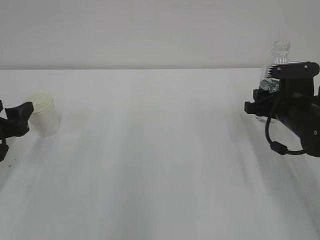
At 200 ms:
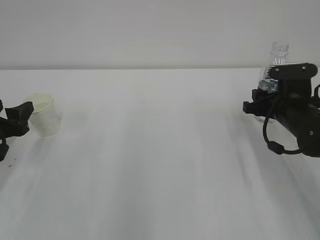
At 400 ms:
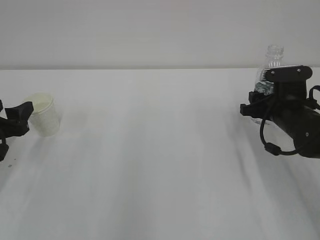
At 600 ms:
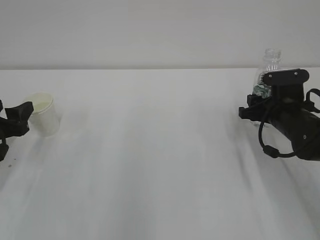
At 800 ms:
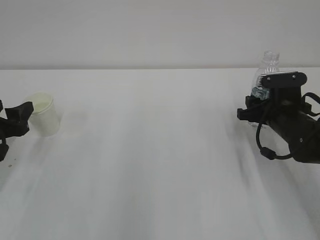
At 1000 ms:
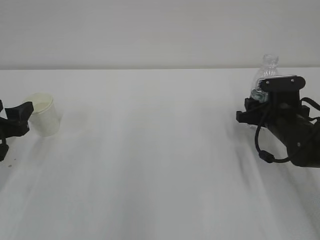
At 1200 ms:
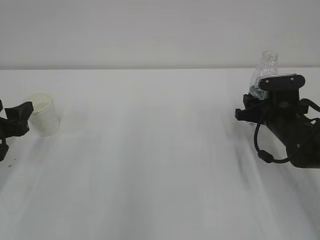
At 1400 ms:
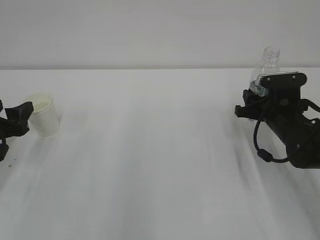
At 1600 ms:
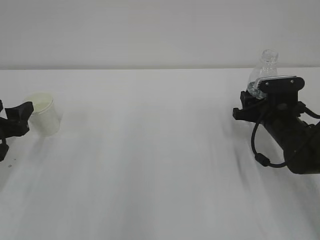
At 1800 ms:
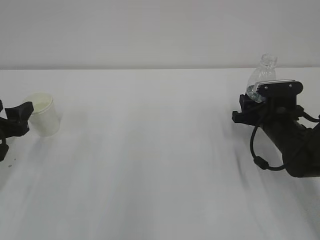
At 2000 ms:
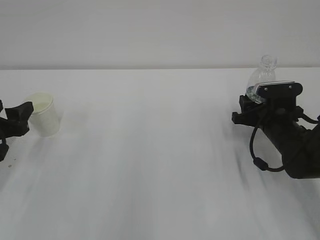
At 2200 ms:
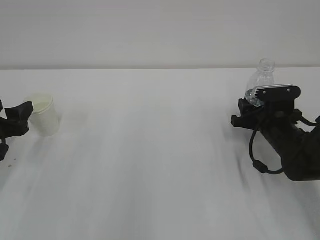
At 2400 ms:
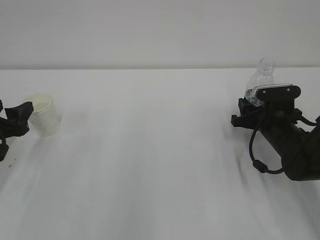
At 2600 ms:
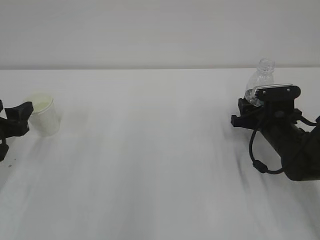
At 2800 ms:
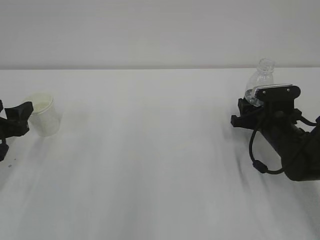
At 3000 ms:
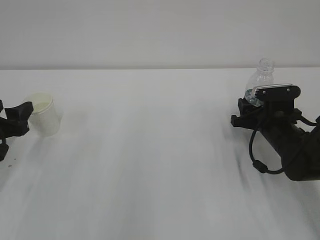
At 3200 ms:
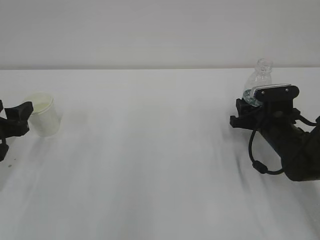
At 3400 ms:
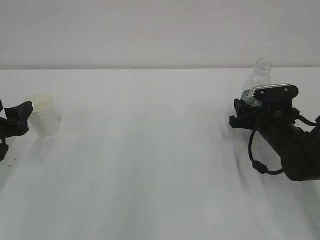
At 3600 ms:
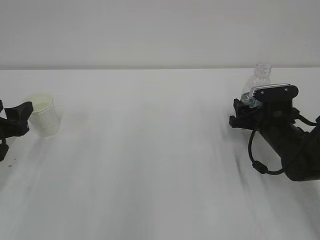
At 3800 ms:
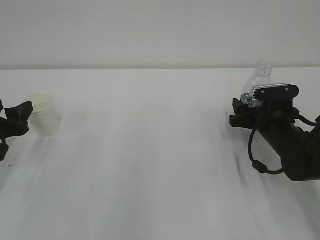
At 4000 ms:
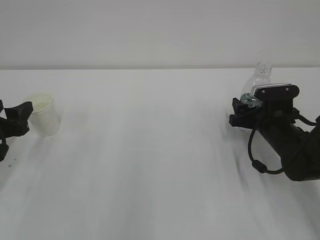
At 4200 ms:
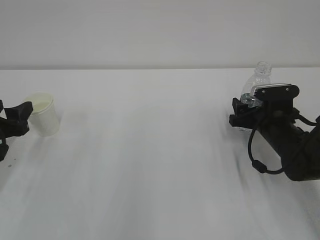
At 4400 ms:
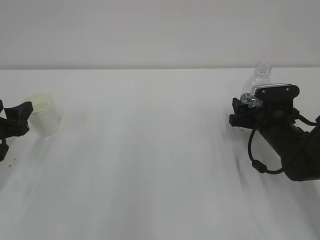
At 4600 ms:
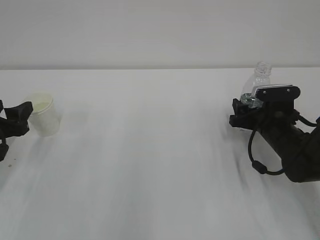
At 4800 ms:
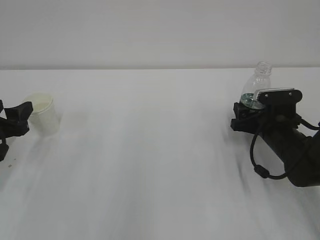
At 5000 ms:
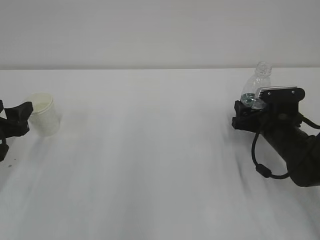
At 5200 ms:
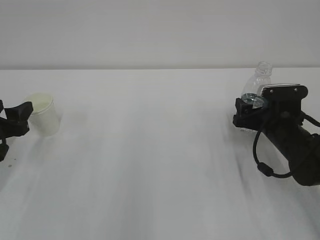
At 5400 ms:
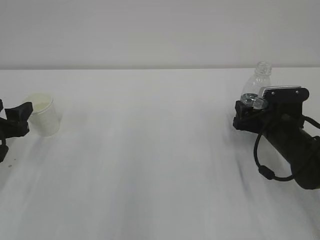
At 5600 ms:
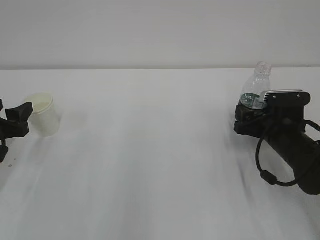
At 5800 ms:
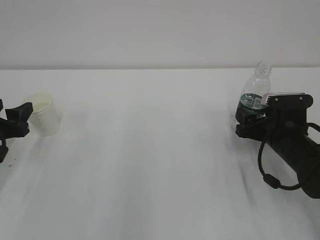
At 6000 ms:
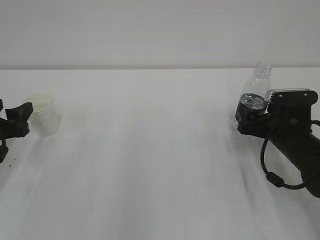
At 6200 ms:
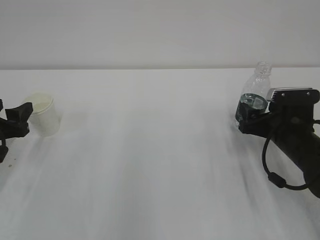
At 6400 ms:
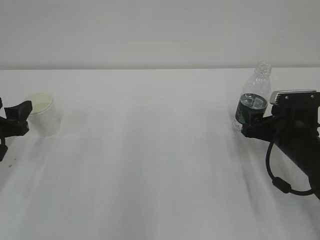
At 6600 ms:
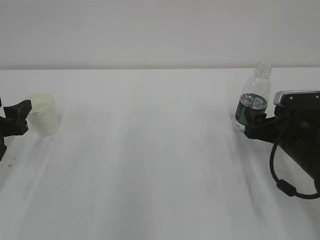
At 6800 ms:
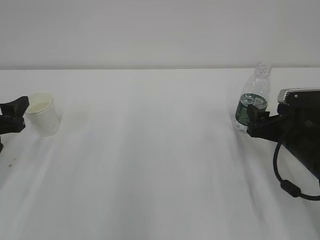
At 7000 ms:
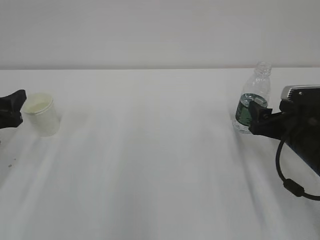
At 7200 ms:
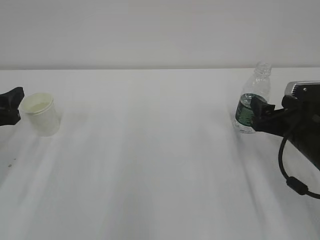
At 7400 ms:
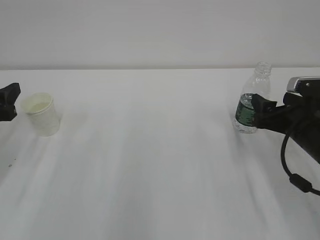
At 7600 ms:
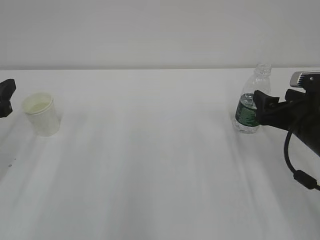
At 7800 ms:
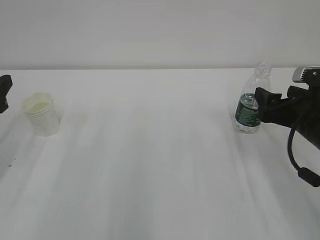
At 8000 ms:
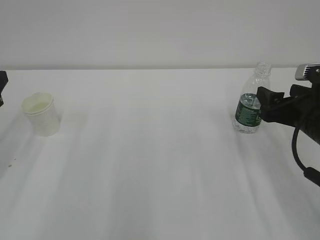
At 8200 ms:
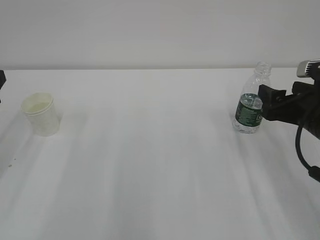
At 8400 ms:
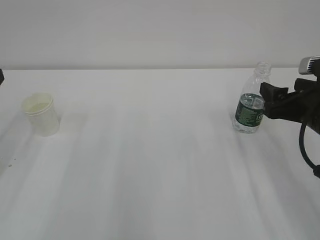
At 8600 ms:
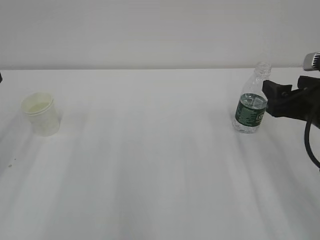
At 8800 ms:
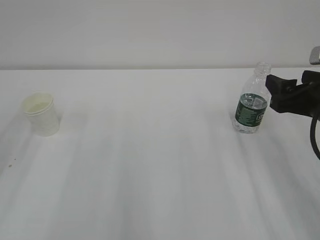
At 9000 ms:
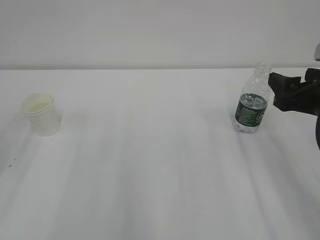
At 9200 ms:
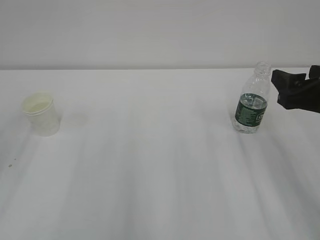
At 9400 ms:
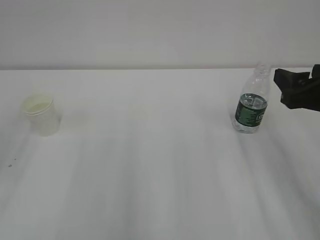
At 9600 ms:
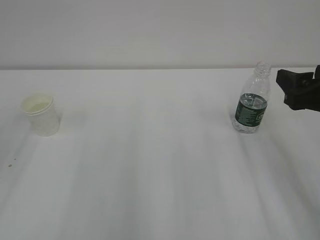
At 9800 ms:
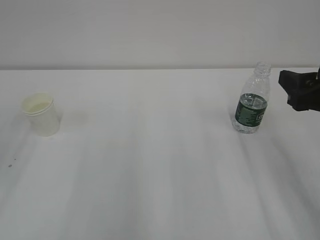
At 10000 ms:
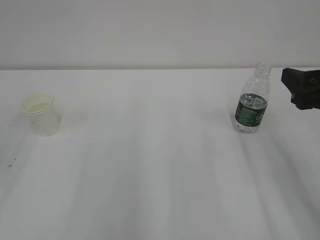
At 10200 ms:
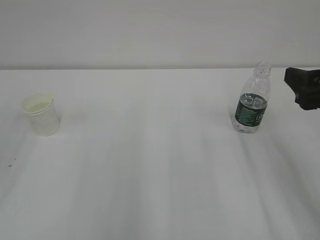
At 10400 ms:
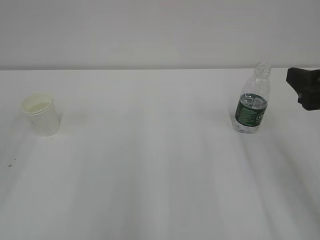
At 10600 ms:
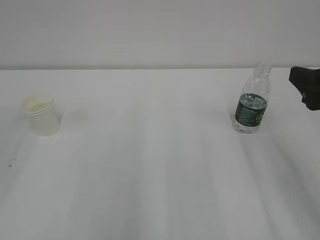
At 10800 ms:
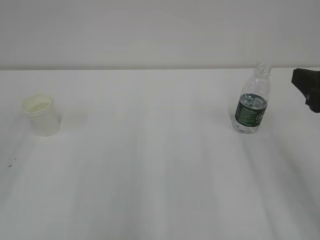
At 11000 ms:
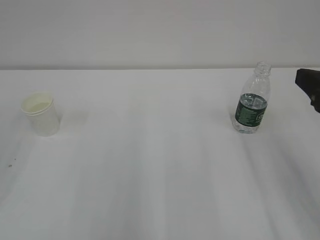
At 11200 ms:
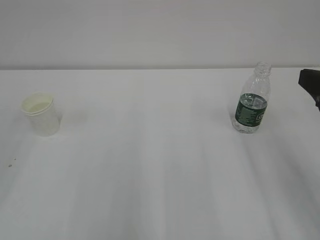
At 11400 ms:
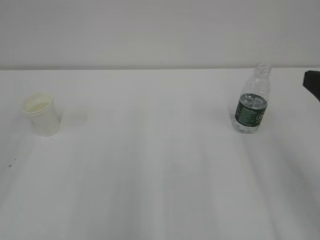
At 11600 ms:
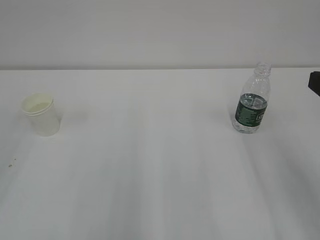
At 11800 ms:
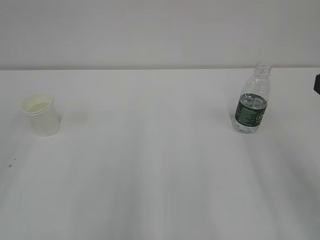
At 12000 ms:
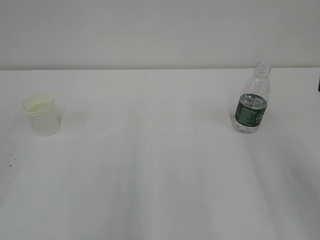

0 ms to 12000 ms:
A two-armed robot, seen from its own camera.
0 ms to 3000 ms: The grippers stay close to where they were, moving slightly.
3000 ms to 4400 ms: The right gripper opens its fingers.
4400 ms to 6000 ms: The grippers stay close to where they were, moving slightly.
6000 ms to 7600 ms: The two grippers go approximately 5 cm upward.
7600 ms to 9000 ms: The right gripper moves upward, approximately 5 cm.
9000 ms to 10400 ms: The right gripper ends up some 5 cm from where it was.
10400 ms to 12000 ms: The right gripper travels backward by some 5 cm.

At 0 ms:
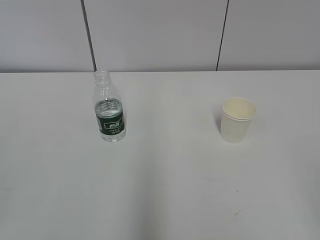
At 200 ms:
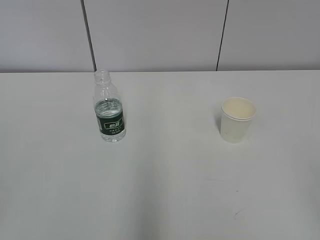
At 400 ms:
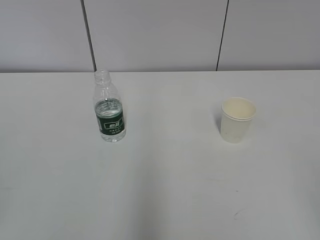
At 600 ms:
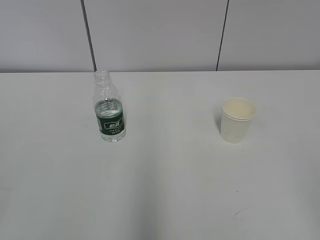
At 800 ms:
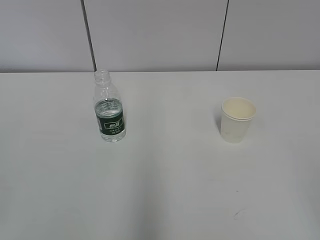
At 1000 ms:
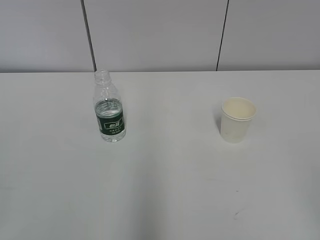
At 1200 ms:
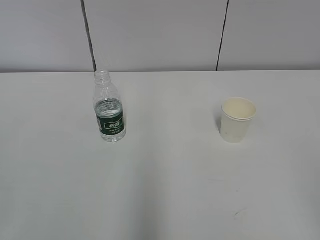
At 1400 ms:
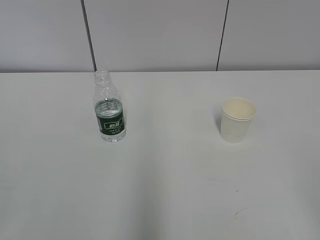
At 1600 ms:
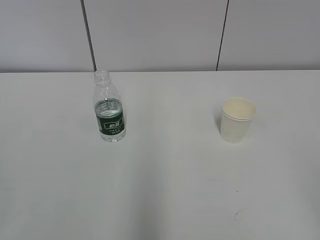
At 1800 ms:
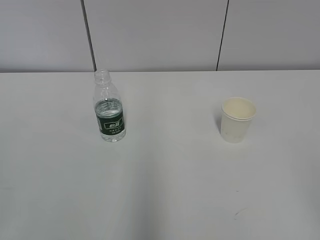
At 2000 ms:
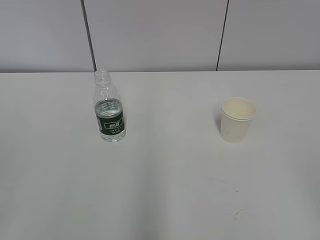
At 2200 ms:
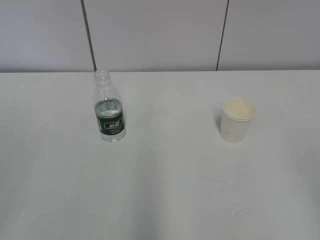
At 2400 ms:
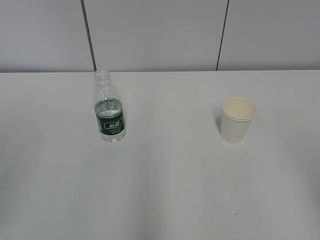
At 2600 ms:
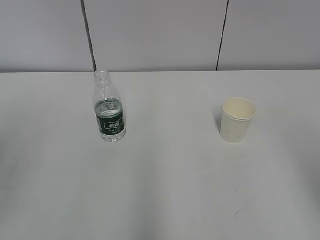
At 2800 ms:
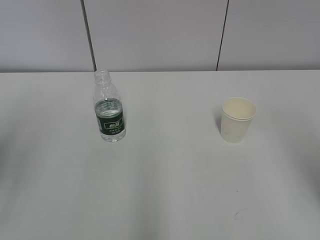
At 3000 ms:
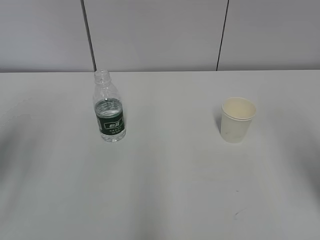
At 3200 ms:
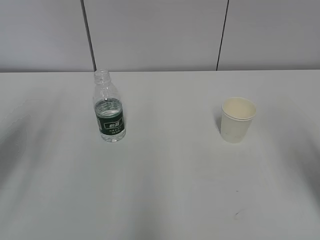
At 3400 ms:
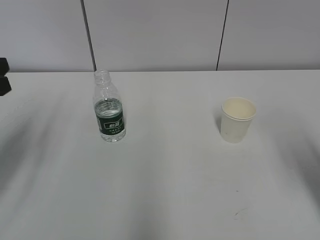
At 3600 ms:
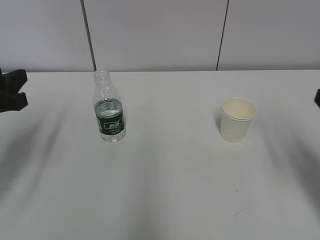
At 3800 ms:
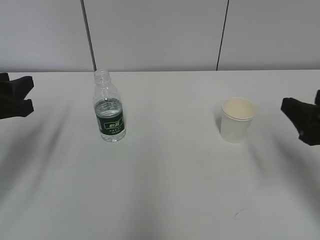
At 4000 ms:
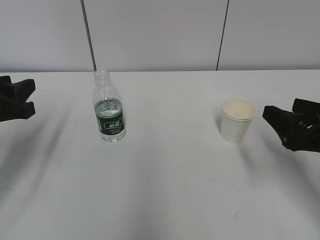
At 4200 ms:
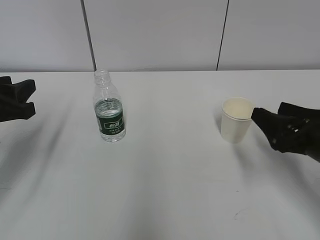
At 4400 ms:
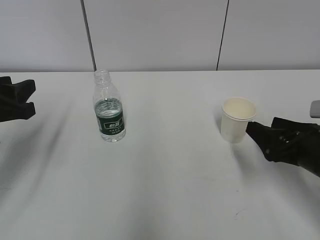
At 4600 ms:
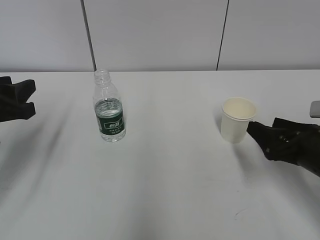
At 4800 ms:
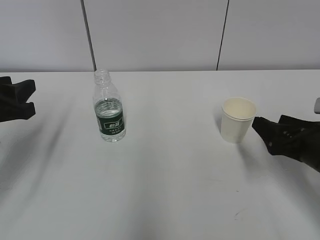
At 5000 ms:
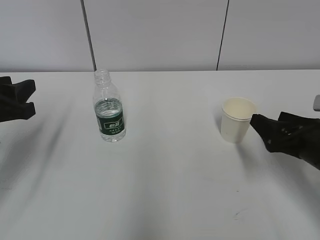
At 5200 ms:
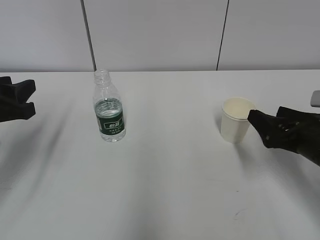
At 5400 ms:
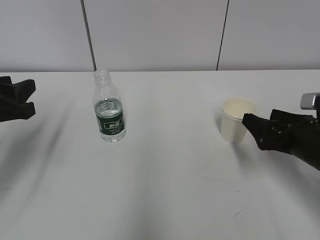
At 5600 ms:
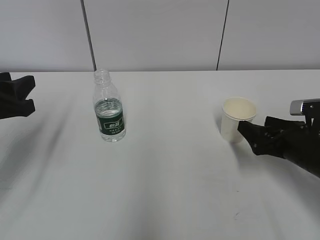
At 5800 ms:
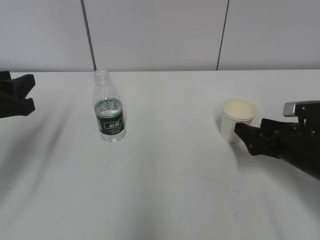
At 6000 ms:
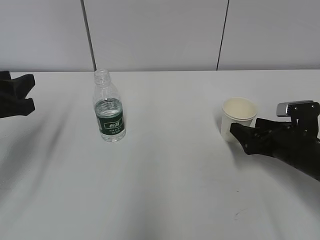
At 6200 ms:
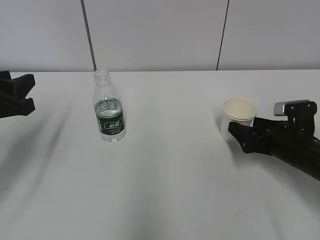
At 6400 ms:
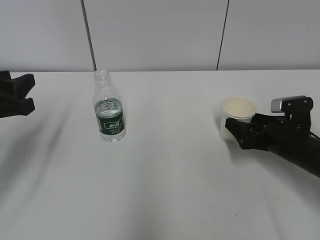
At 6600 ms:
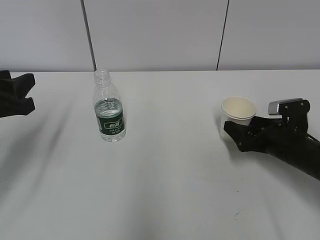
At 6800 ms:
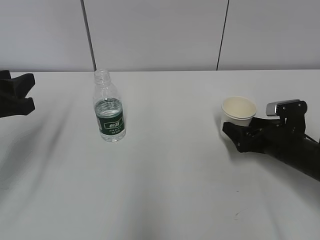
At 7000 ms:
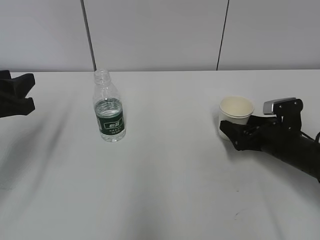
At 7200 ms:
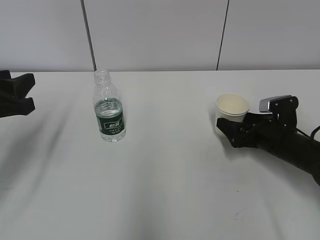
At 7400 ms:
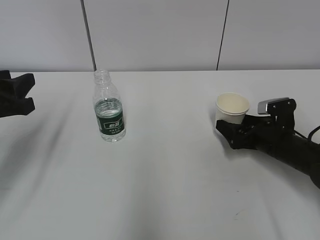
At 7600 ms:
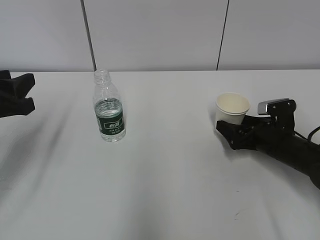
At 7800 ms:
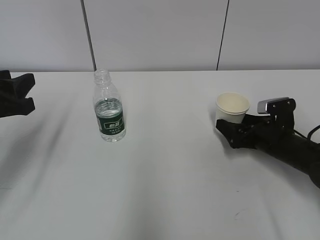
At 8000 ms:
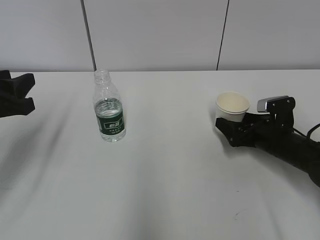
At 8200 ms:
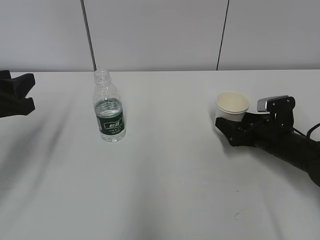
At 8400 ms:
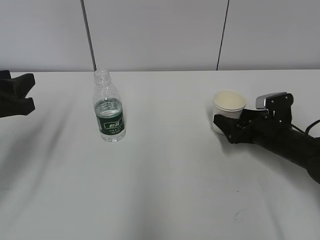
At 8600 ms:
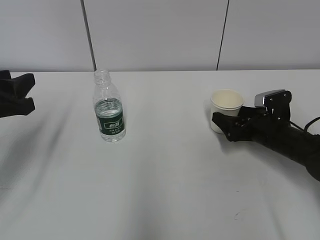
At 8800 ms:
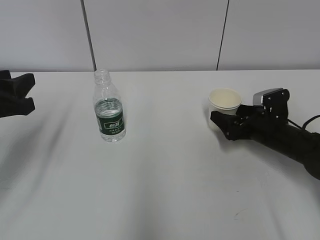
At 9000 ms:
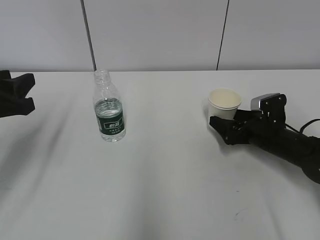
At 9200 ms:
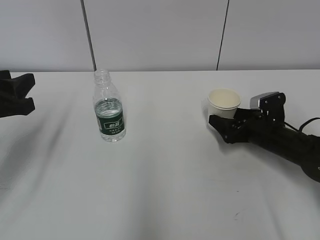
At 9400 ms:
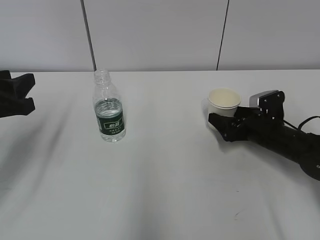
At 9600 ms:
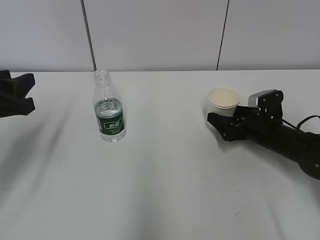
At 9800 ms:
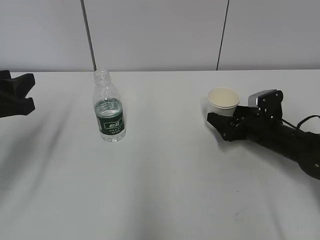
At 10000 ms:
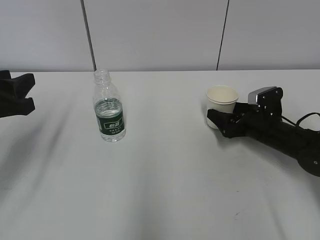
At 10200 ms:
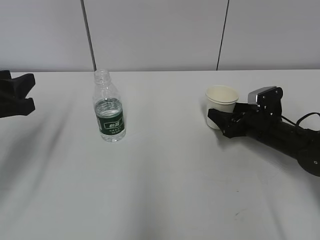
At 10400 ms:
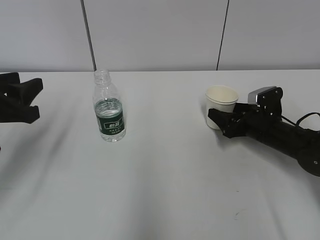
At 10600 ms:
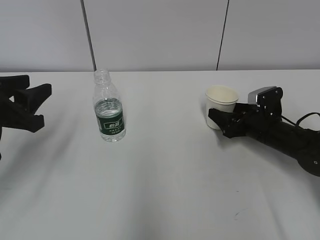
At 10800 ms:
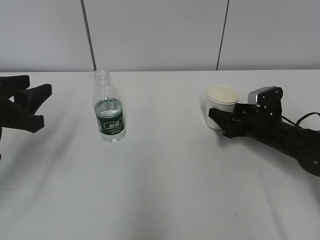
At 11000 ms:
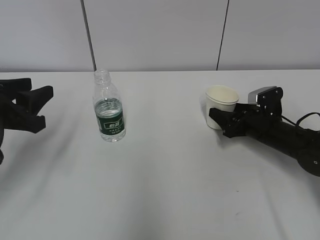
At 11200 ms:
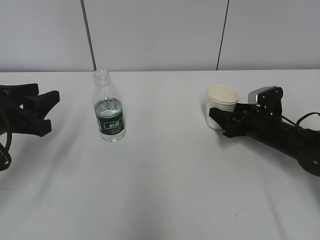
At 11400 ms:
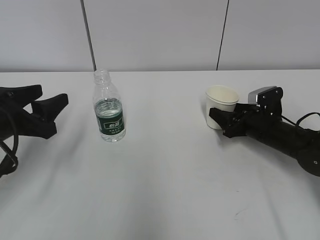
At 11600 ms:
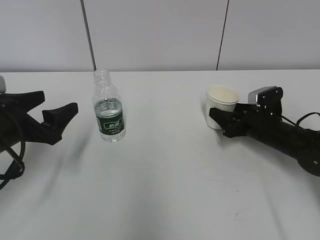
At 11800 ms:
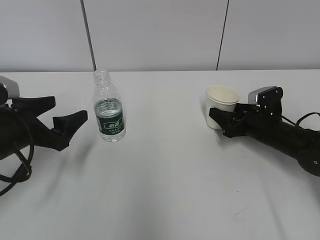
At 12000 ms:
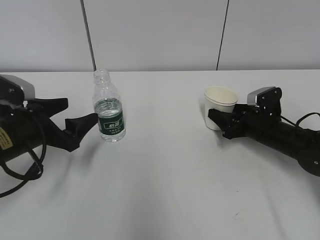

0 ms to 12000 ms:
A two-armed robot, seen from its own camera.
Step, 0 ms to 11600 ms: Grab the paper cup with the right hand.
1600 ms to 3000 ms: The two grippers go about 15 cm forward.
3000 ms to 4400 ms: The right gripper heads downward and forward, covering approximately 20 cm. Meanwhile the left gripper shifts some 10 cm downward and forward.
4400 ms to 6000 ms: The right gripper is displaced forward and downward by approximately 10 cm, and opens up.
6000 ms to 7600 ms: The right gripper shifts by approximately 5 cm.
7600 ms to 9000 ms: The grippers move only a little.
9000 ms to 10400 ms: The right gripper closes up.
10400 ms to 12000 ms: The right gripper closes its fingers, while the left gripper heads downward, covering about 5 cm, and opens.
